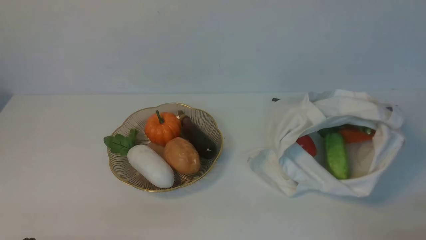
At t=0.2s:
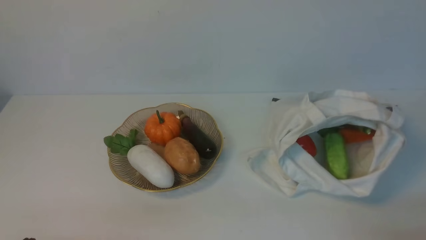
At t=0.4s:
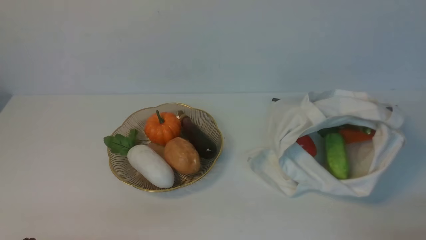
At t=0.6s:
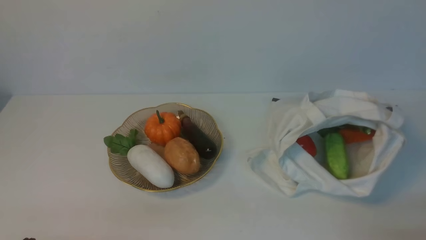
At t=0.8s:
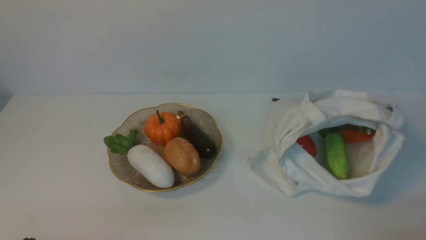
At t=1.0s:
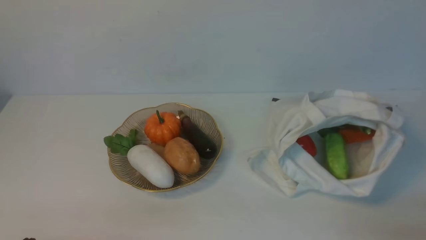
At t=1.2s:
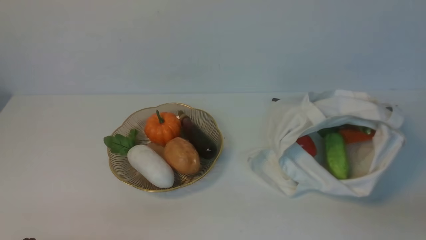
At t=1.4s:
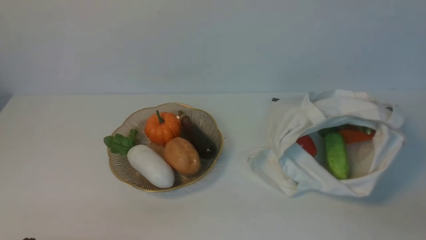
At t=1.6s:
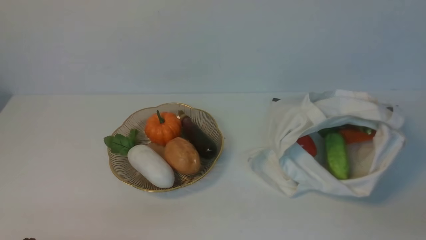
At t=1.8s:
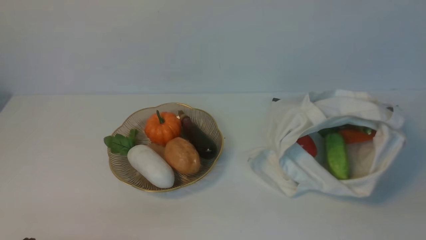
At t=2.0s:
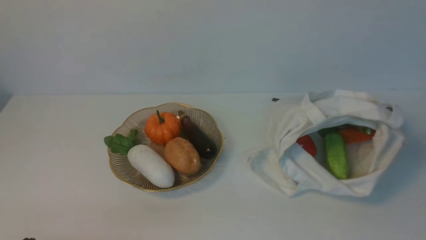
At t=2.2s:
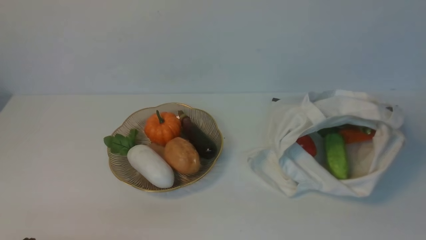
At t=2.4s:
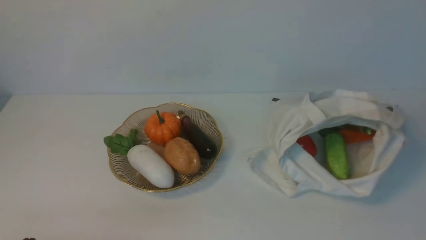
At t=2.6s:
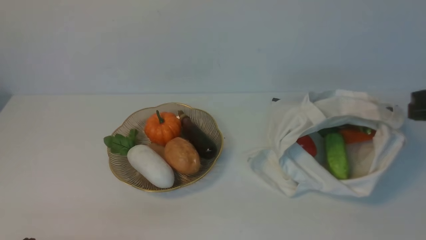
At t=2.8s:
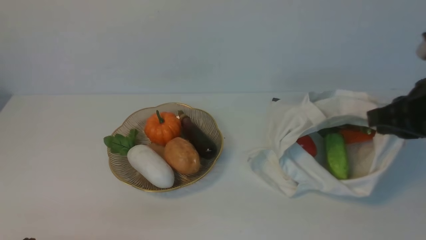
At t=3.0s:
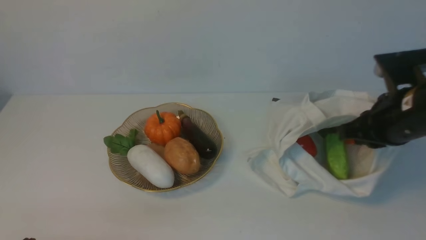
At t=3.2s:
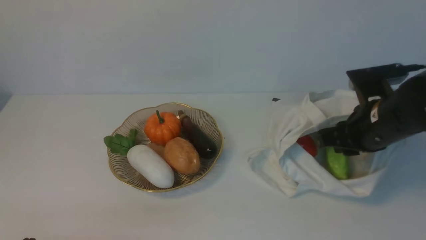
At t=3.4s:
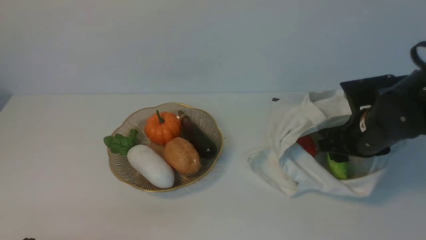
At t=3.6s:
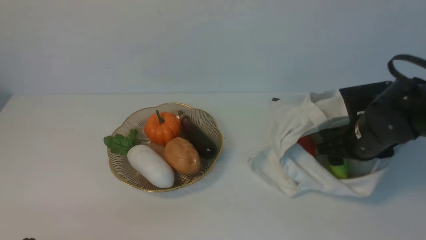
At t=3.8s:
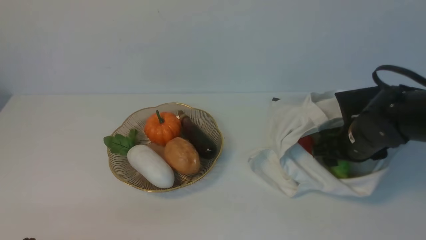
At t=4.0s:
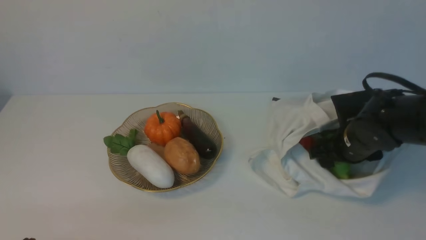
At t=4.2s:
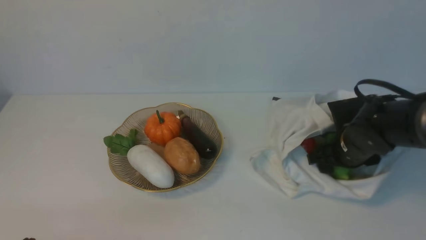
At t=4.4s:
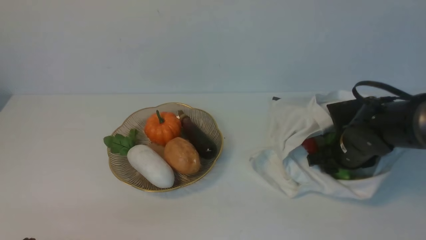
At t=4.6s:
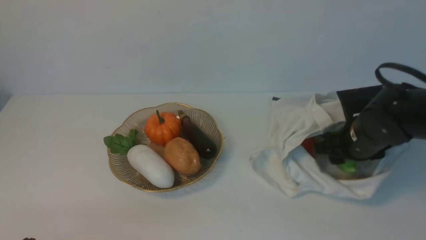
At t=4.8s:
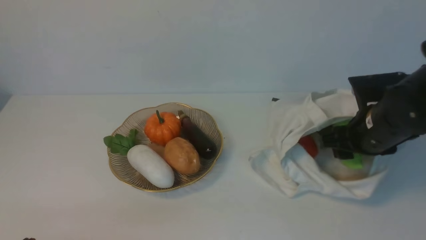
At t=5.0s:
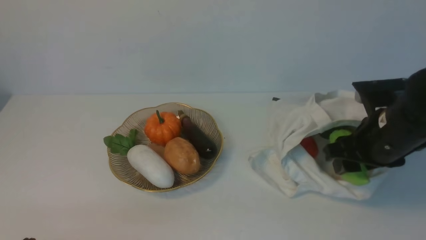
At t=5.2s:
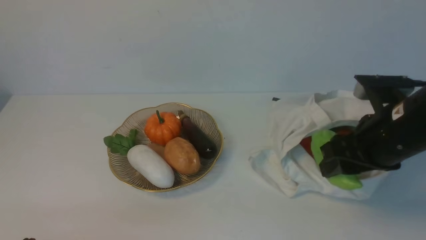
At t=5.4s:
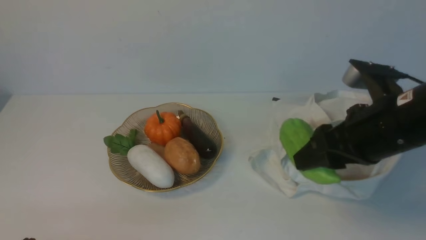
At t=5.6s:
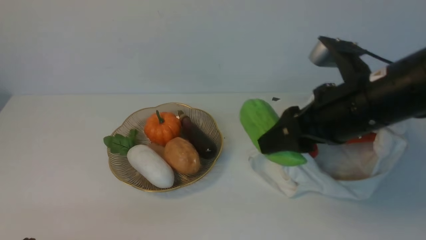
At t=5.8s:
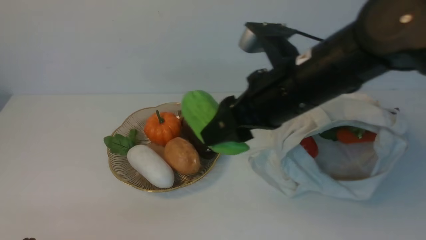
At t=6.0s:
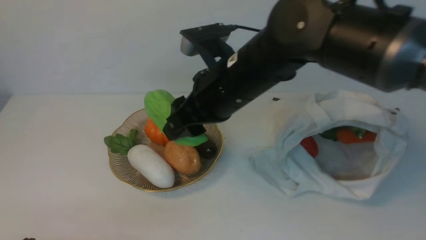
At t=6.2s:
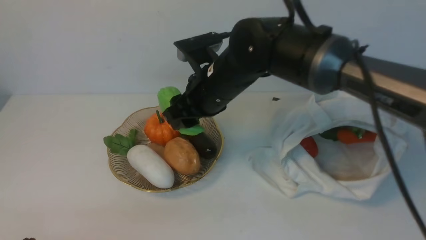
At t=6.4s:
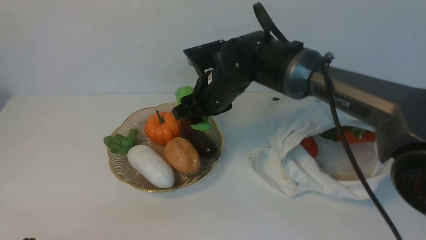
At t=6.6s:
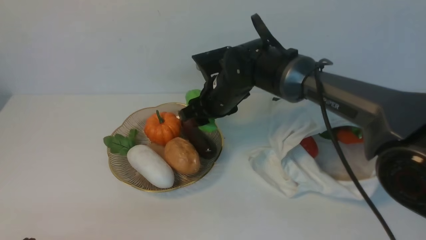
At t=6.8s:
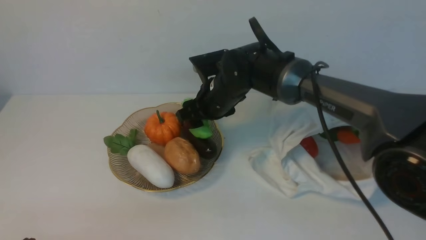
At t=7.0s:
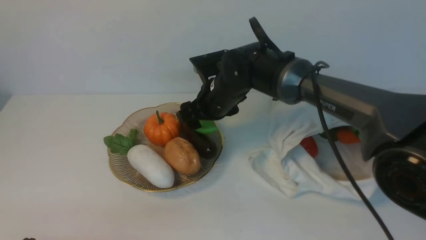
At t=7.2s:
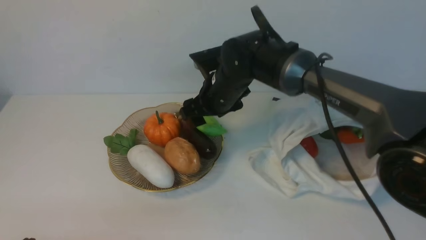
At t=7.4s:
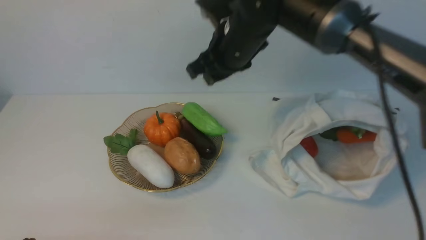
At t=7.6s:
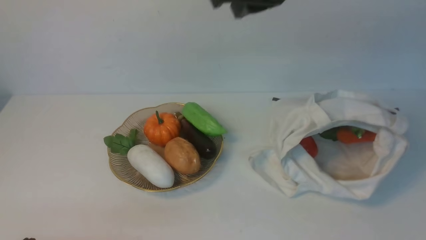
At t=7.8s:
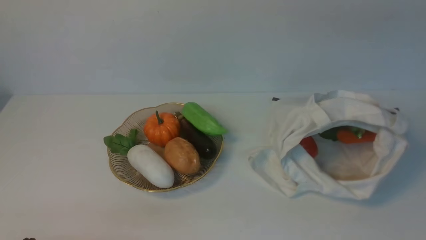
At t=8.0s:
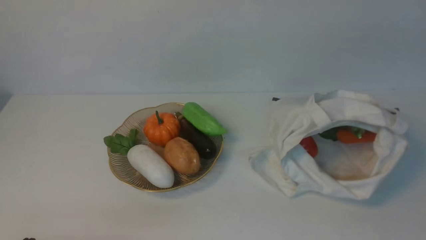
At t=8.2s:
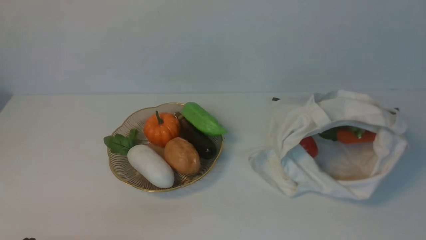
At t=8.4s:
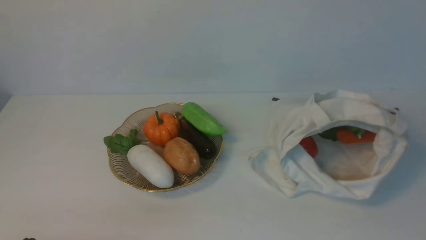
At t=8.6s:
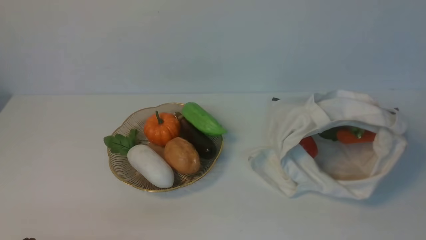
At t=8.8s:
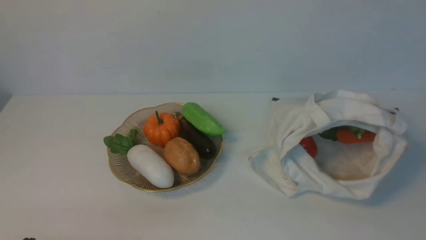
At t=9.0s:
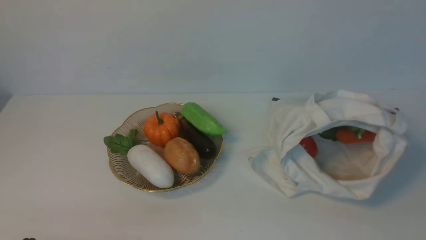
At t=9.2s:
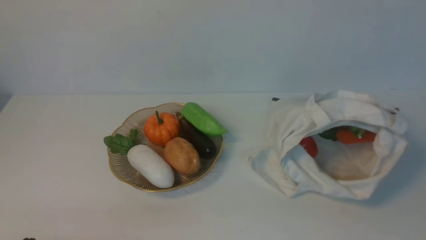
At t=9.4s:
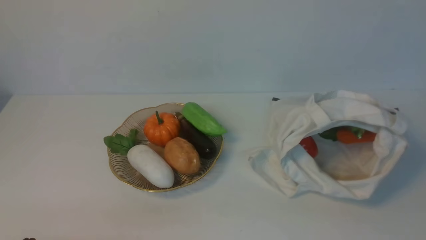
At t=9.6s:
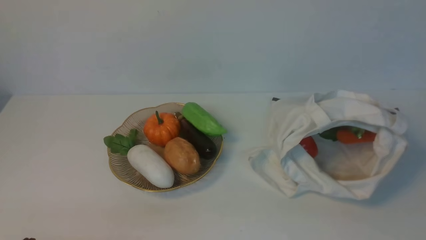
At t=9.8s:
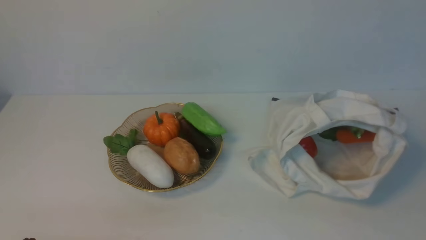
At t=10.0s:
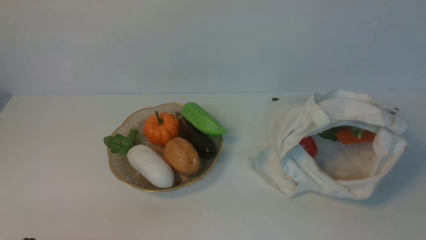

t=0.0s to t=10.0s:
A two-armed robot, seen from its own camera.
Task of the whole recording: take vegetables from cloth bag on white table place on plate.
Step, t=0.0s to t=4.2s: Grasp the bitter melon with right gripper.
Step, t=4.6s to t=7.2s: Place the bitter melon on the plate with right gripper.
t=1.4s to t=2.8s: The right gripper goes some 20 cm forward and upward.
t=2.8s to t=4.2s: The right gripper travels downward and forward by roughly 20 cm, and opens its fingers.
t=4.2s to t=5.8s: The right gripper is displaced upward and to the left by approximately 25 cm.
t=5.8s to t=7.2s: The right gripper is displaced forward, downward and to the left by some 15 cm.
t=7.2s to t=8.6s: The right gripper moves backward and to the right, about 50 cm, and closes.

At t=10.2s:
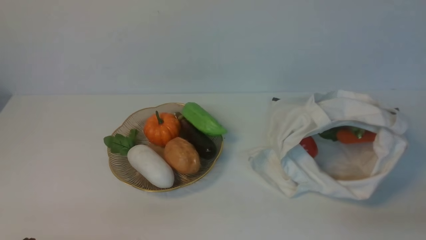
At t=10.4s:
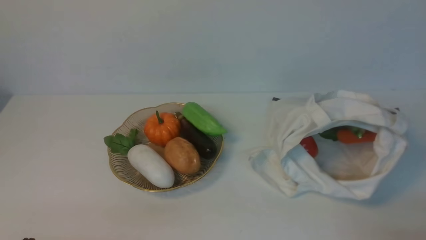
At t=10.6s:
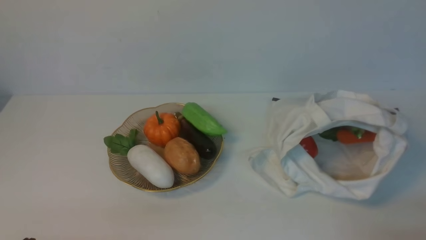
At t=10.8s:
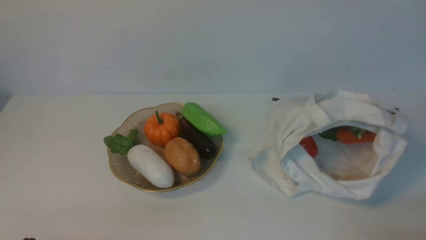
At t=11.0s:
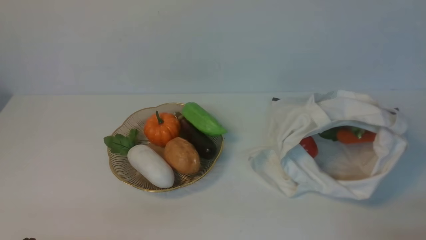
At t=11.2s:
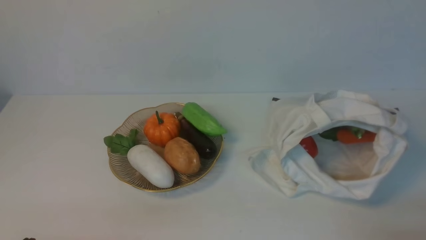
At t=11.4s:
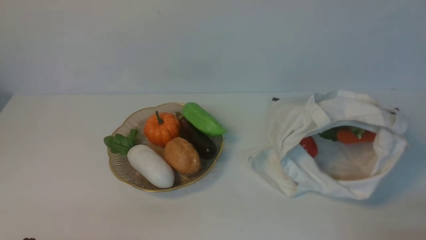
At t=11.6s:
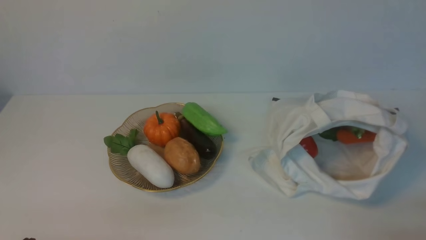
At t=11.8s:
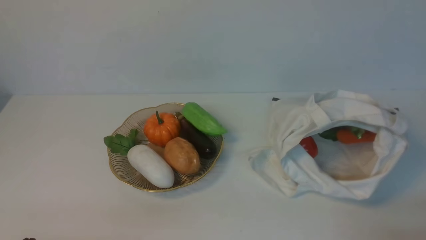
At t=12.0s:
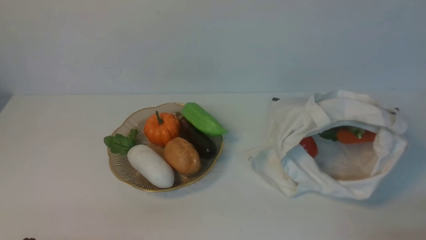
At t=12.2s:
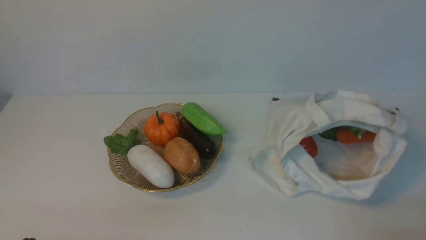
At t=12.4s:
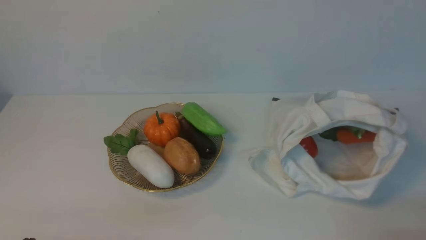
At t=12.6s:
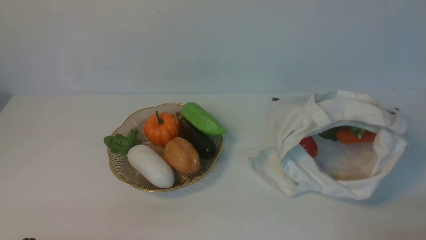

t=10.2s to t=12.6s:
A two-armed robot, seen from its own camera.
Task of the whole recording: take vegetables from cloth bag on white table place on plate.
t=11.4s to t=12.6s: The two grippers keep their place.
